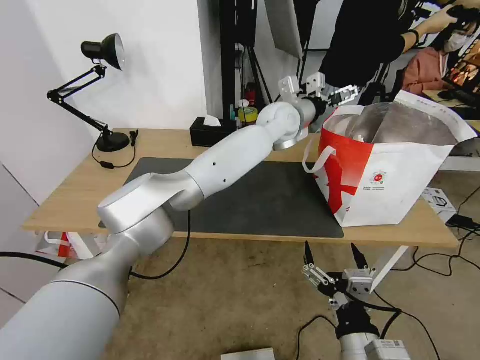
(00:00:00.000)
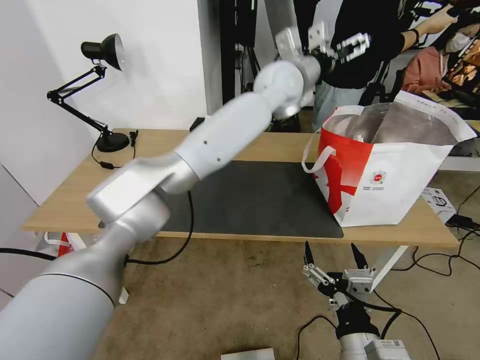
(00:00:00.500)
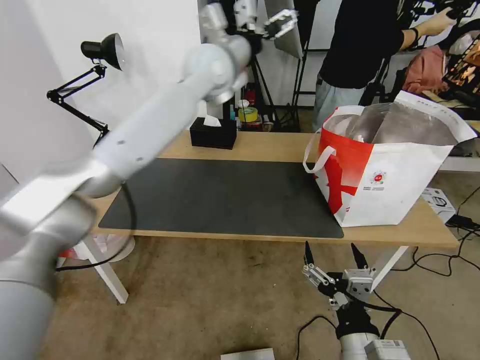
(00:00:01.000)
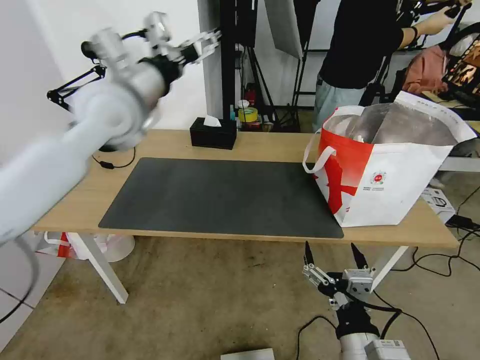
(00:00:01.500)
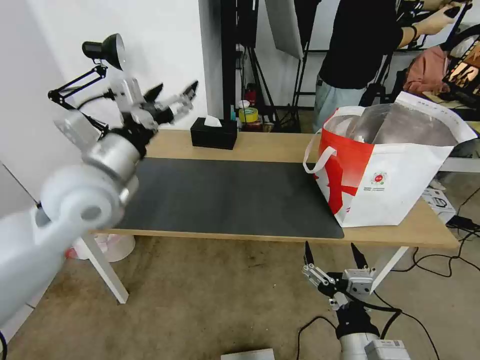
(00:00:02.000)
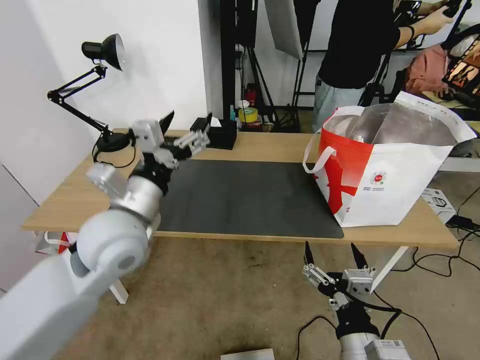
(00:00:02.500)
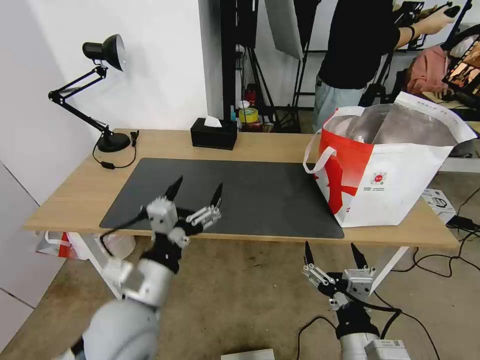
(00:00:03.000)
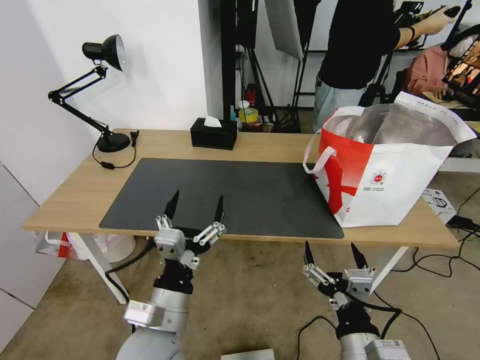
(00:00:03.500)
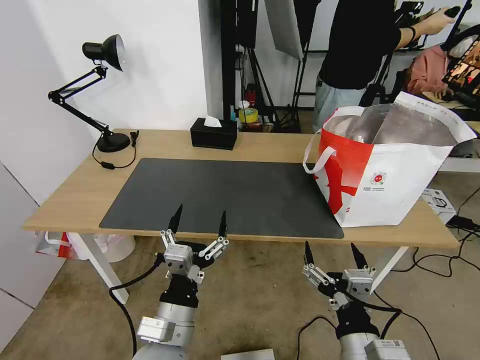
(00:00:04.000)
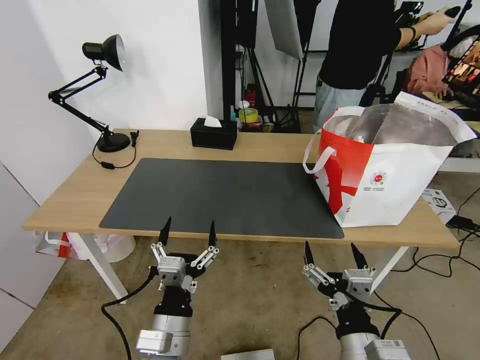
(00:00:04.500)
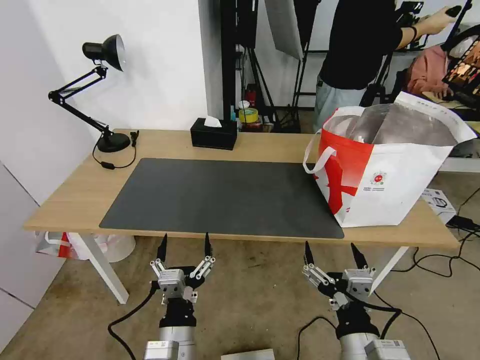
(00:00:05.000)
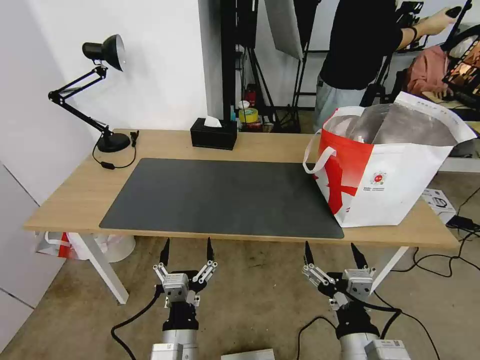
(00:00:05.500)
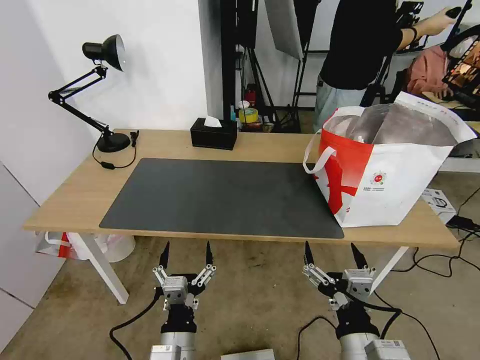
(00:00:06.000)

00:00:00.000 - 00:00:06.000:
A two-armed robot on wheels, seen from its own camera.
Task of the whole recording: Pick up the trash from the table and place it into the takeout bag.
00:00:00.000 - 00:00:02.000: The left gripper moves to the left and backward, roughly 40 cm.
00:00:02.000 - 00:00:04.000: The left gripper is displaced downward, backward and to the right by about 30 cm.
00:00:04.000 - 00:00:06.000: The left gripper shifts about 5 cm downward.

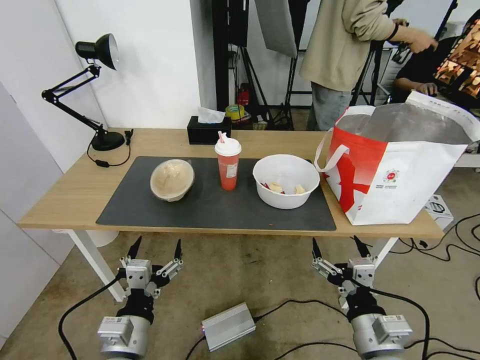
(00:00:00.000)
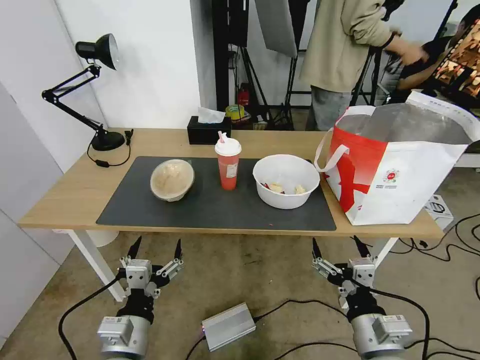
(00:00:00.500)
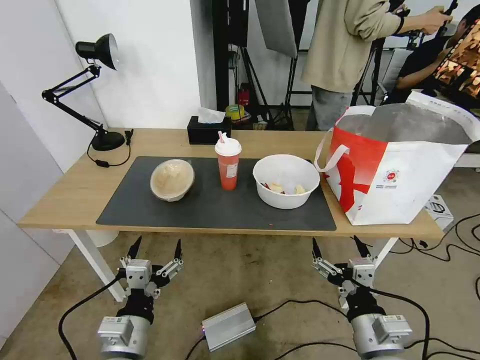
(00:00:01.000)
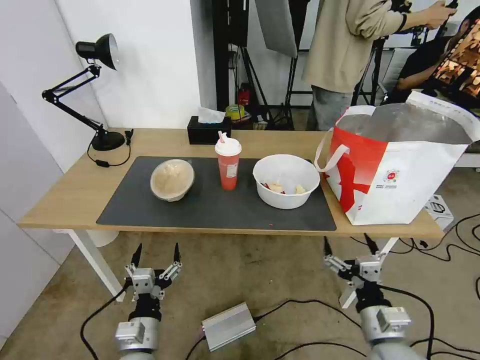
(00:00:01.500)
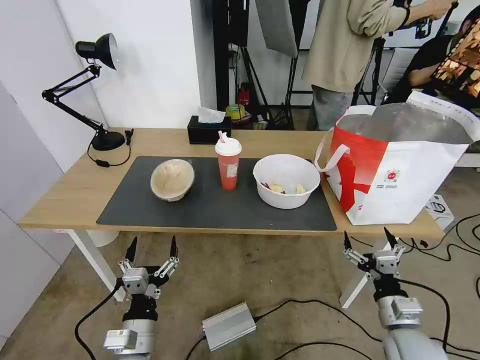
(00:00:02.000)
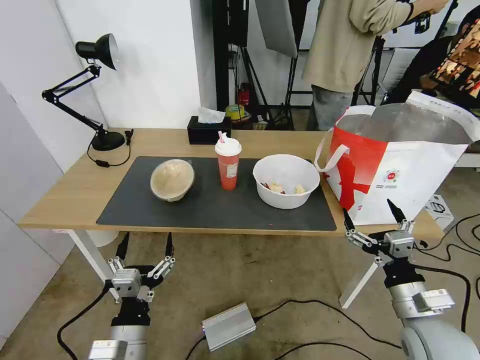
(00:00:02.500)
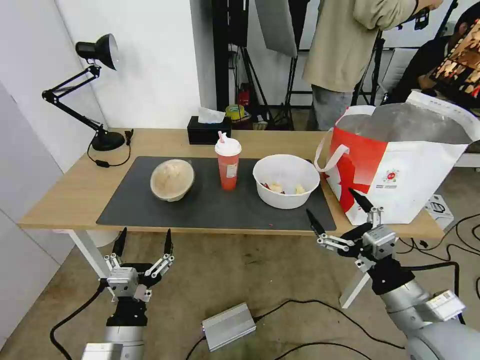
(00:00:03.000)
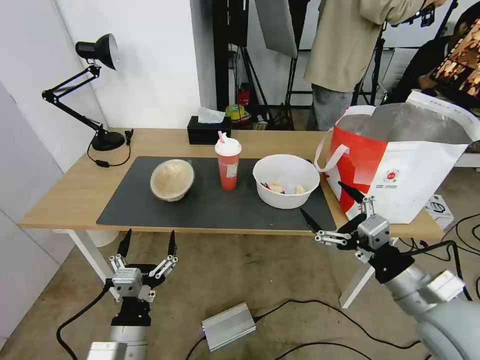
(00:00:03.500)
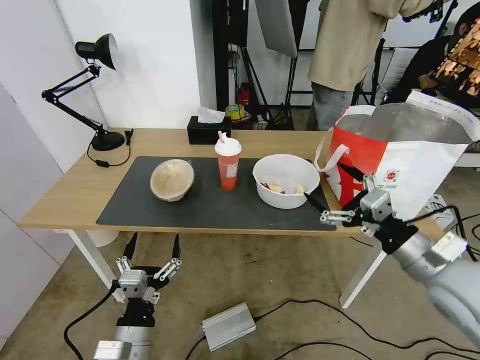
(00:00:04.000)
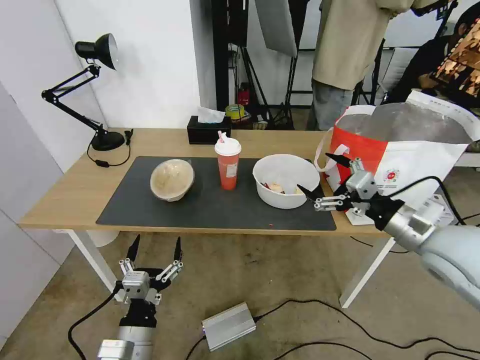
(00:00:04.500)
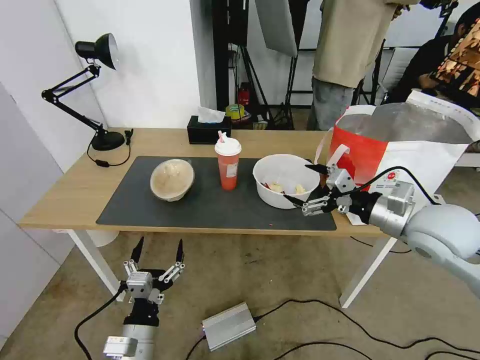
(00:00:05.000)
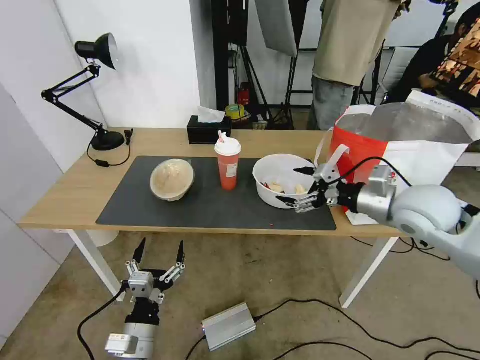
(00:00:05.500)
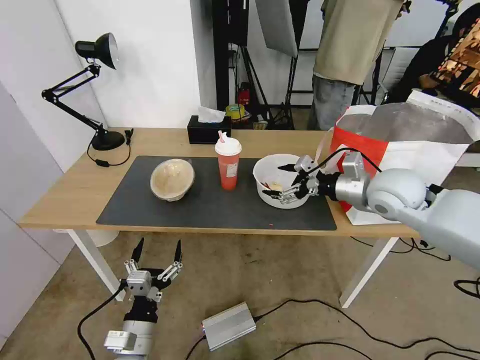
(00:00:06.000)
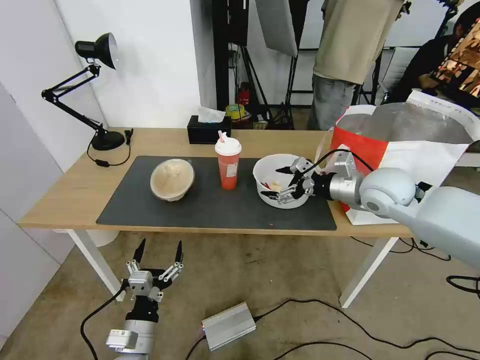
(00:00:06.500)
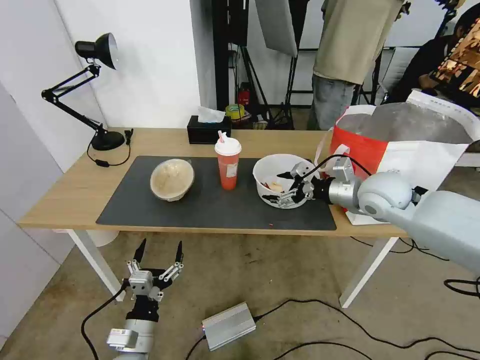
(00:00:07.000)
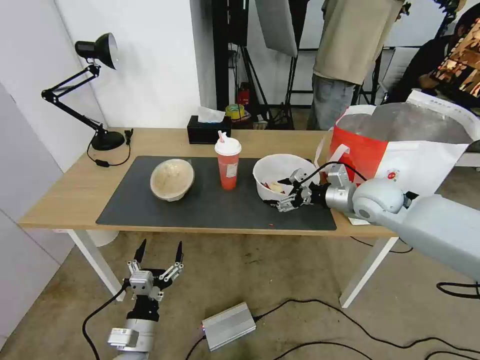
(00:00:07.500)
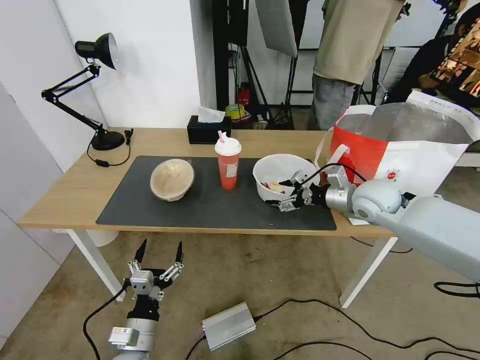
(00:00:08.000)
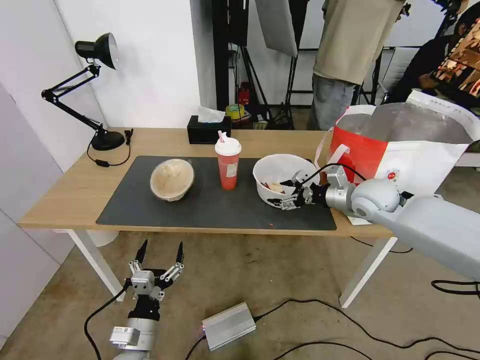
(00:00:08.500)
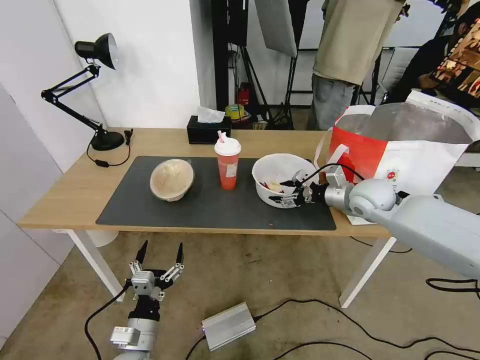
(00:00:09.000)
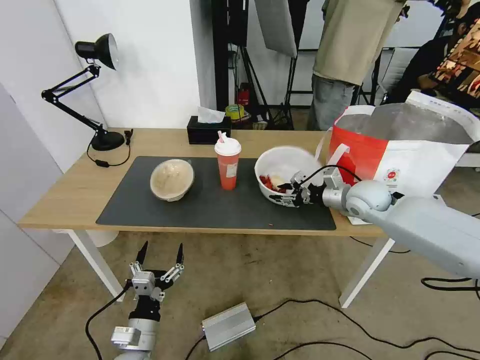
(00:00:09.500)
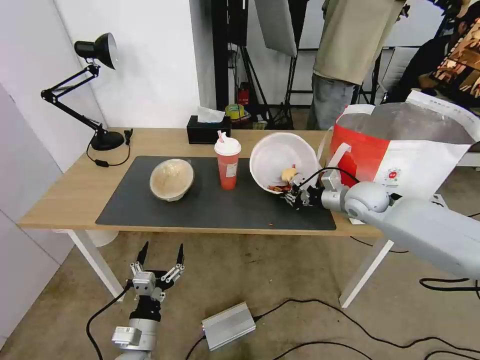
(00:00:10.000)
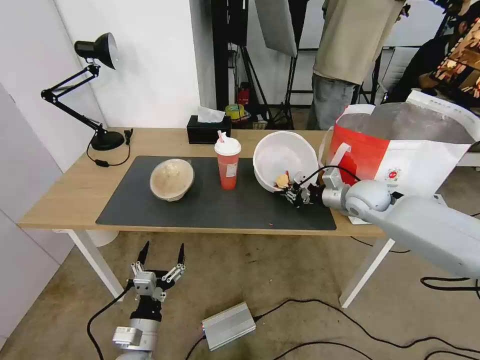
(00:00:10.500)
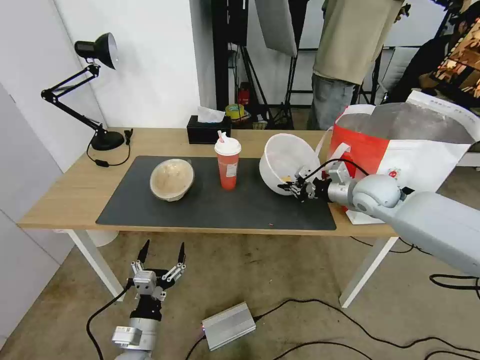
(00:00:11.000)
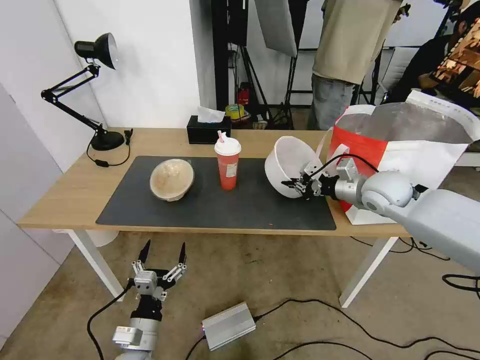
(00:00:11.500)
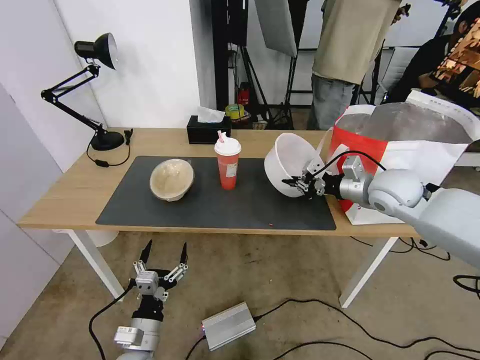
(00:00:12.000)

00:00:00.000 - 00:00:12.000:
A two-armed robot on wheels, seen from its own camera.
Task of the whole recording: Pick up the trash from the table and place it into the takeout bag.
00:00:02.000 - 00:00:04.000: The right gripper shifts about 20 cm upward.
00:00:04.000 - 00:00:06.000: The left gripper shifts by approximately 5 cm; the right gripper shifts approximately 20 cm forward.
00:00:06.000 - 00:00:08.000: The right gripper is displaced downward by some 5 cm.
00:00:08.000 - 00:00:10.000: The right gripper closes.
00:00:10.000 - 00:00:12.000: The right gripper is displaced upward by some 5 cm.

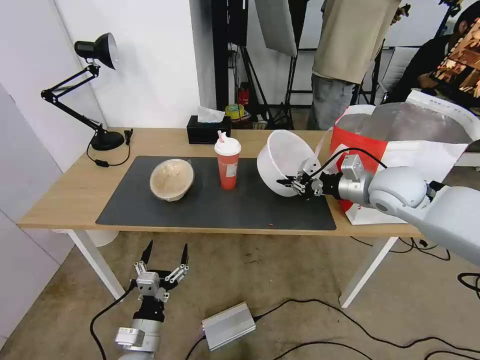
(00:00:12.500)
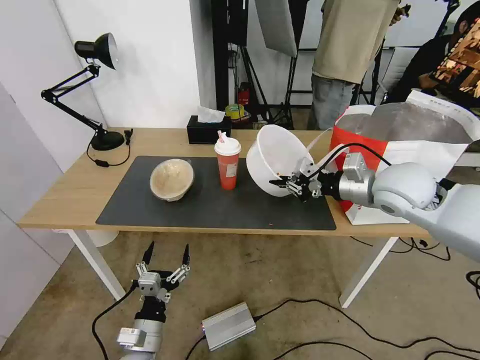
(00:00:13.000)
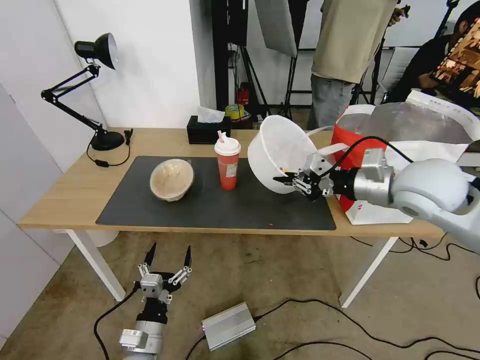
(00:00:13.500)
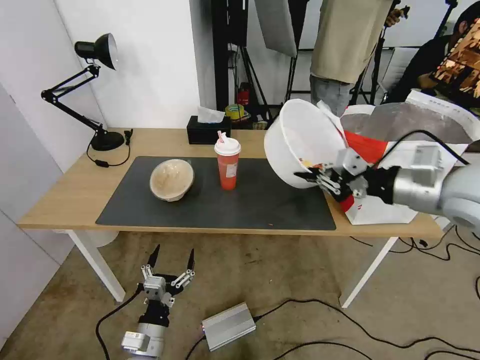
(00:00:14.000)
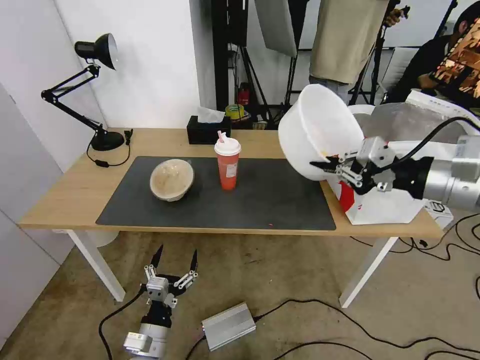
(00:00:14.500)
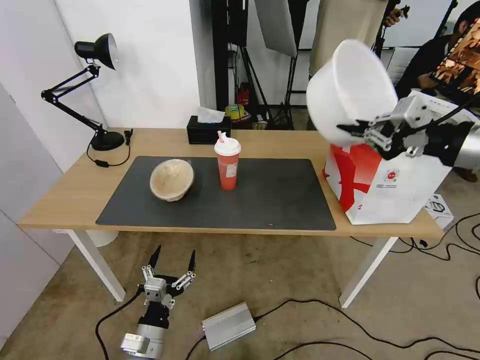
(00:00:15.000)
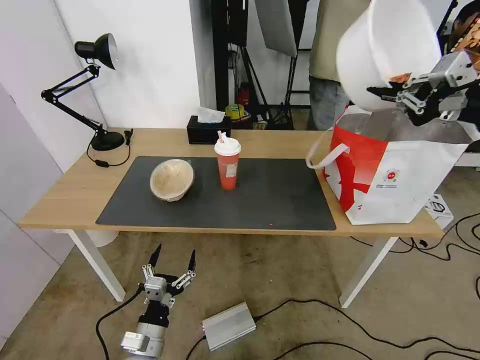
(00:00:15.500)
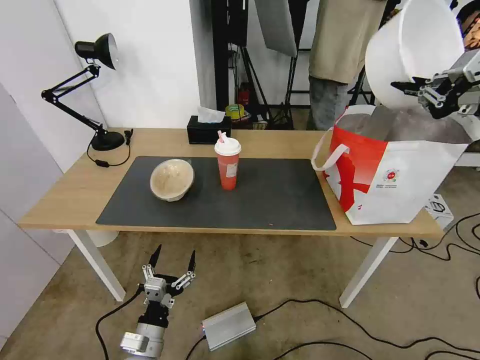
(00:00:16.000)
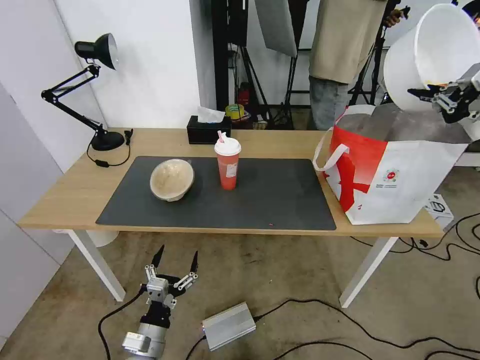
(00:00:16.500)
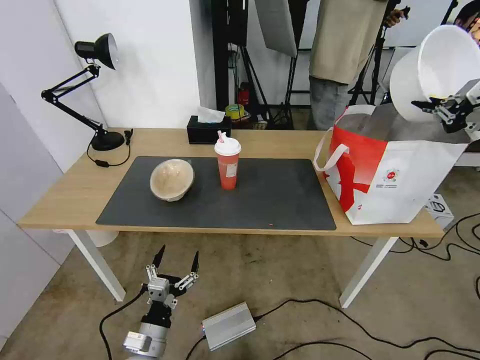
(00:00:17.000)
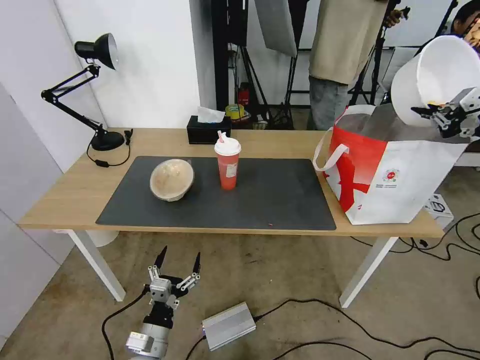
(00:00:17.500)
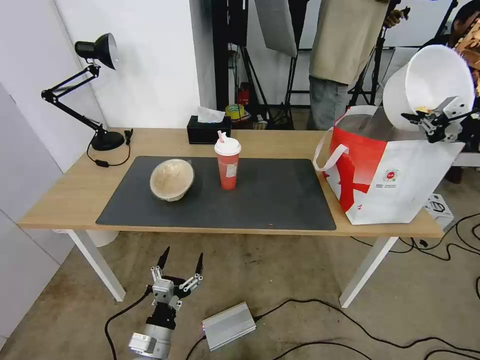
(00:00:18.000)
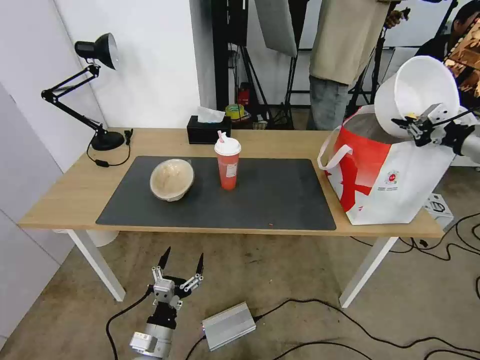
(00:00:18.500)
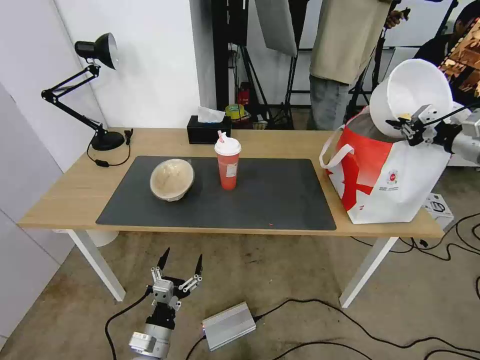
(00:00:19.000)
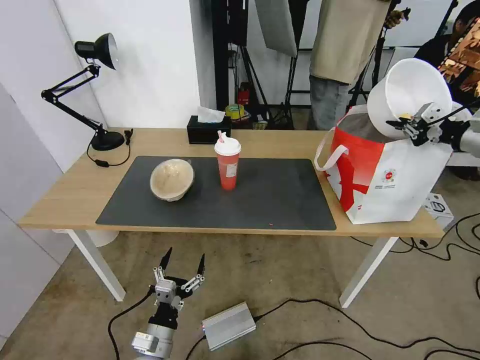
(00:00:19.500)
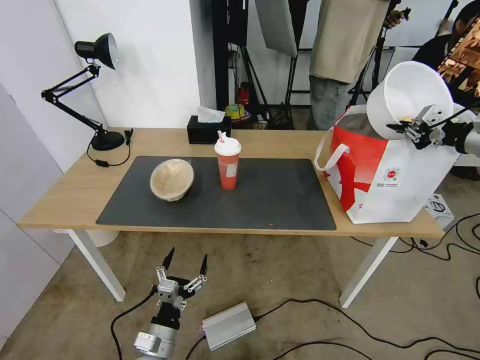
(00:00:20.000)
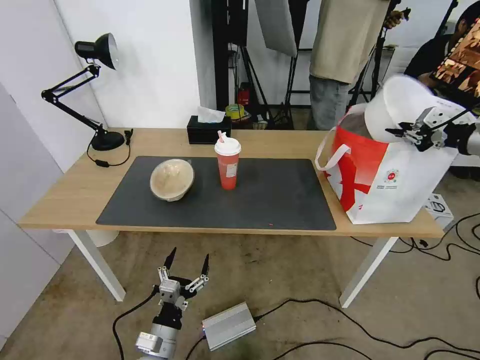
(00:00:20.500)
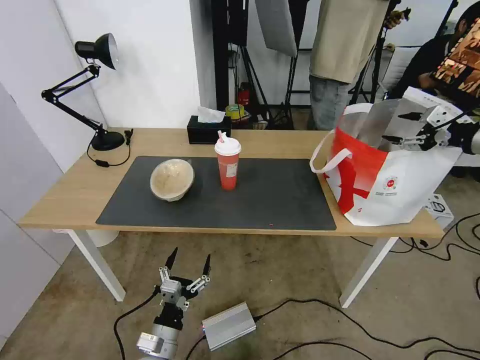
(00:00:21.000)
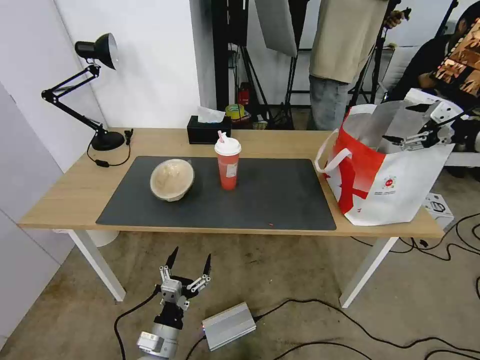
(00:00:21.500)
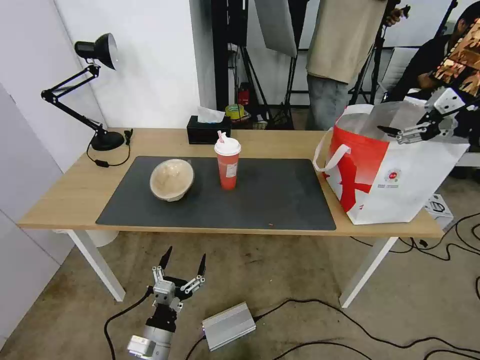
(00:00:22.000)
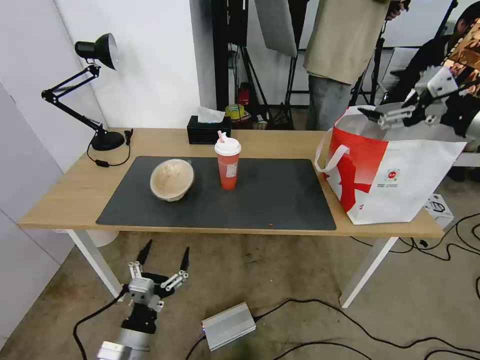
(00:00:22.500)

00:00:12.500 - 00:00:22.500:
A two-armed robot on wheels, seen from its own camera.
Task of the whole recording: Pick up the trash from the table and place it into the takeout bag.
00:00:12.500 - 00:00:14.500: The right gripper travels backward and upward by approximately 20 cm.
00:00:14.500 - 00:00:16.500: The right gripper is displaced to the right and forward by about 15 cm.
00:00:16.500 - 00:00:18.500: The right gripper goes about 10 cm downward and forward.
00:00:18.500 - 00:00:20.500: The grippers make only small movements.
00:00:20.500 - 00:00:22.500: The right gripper heads to the left, backward and upward, covering approximately 10 cm, and opens up; the left gripper heads upward, covering roughly 5 cm.
